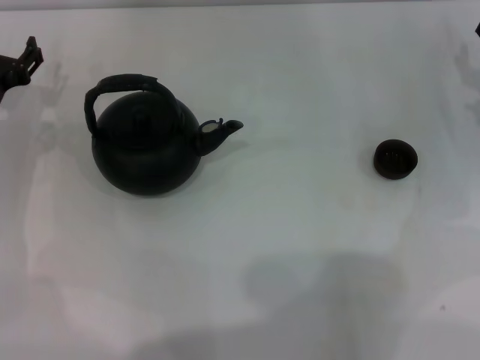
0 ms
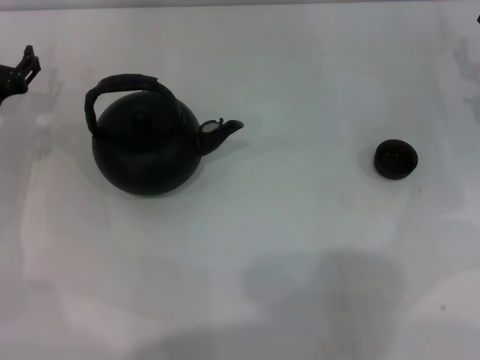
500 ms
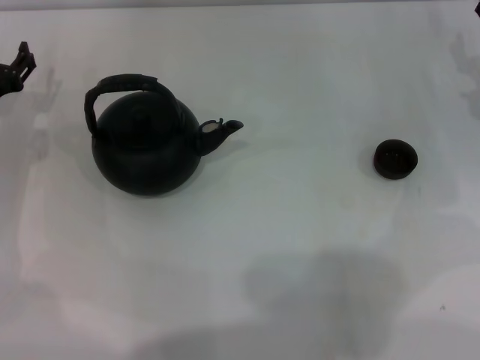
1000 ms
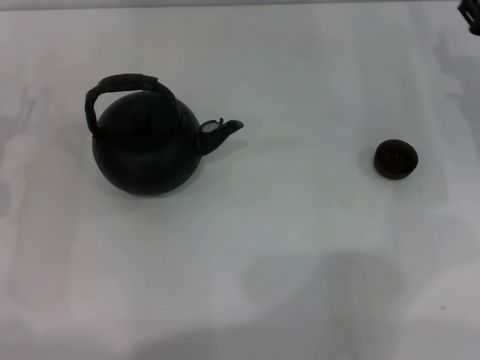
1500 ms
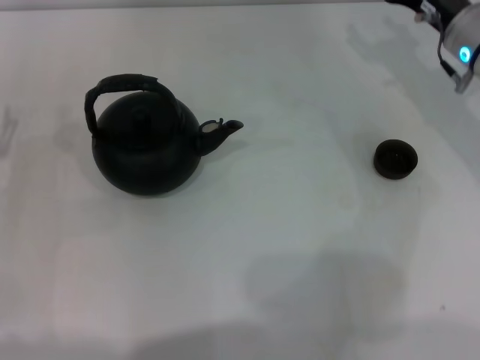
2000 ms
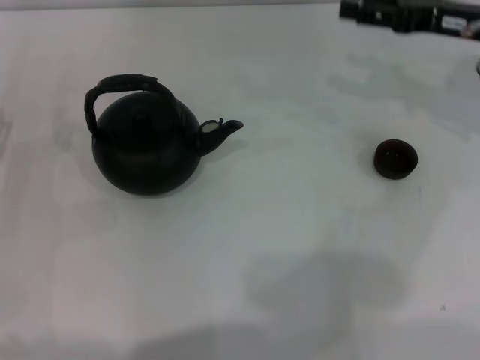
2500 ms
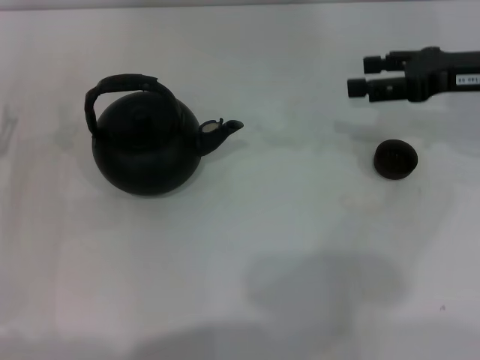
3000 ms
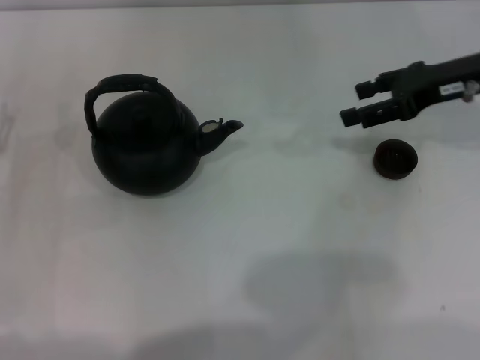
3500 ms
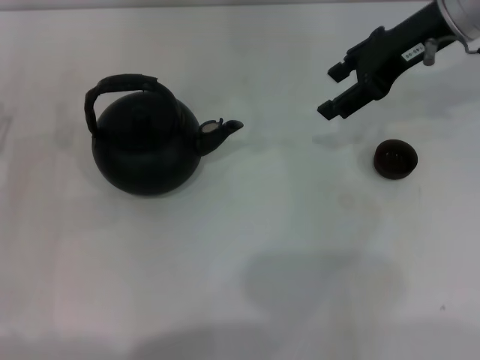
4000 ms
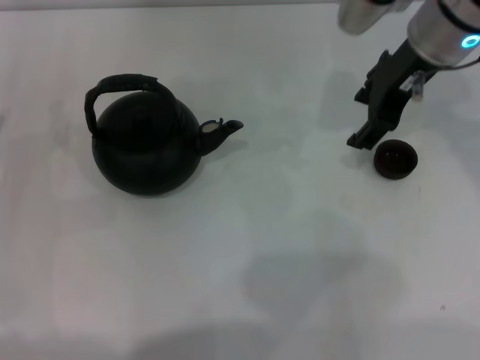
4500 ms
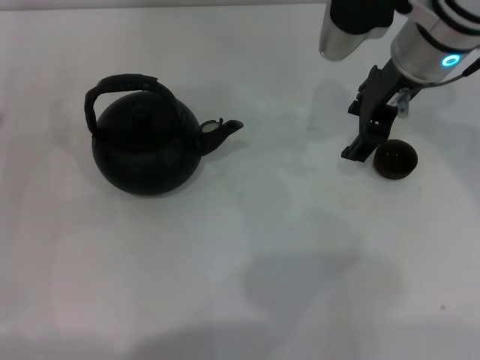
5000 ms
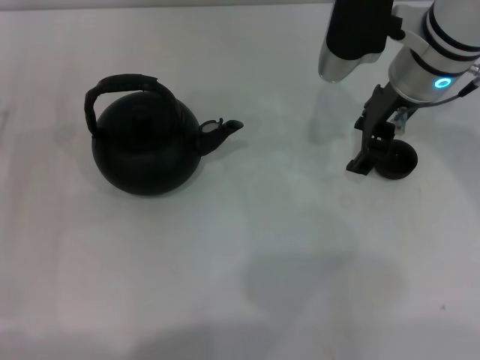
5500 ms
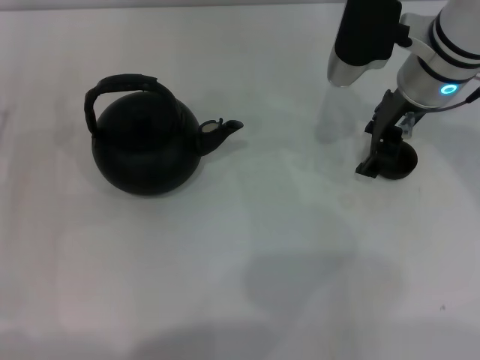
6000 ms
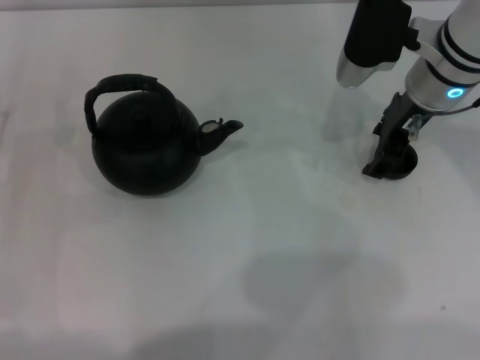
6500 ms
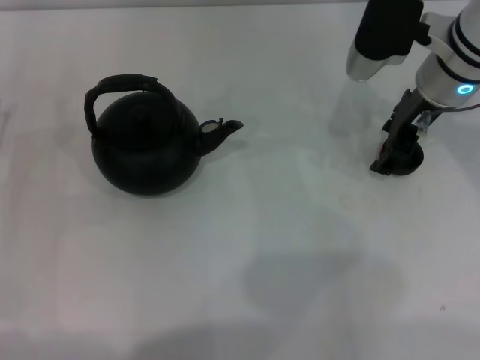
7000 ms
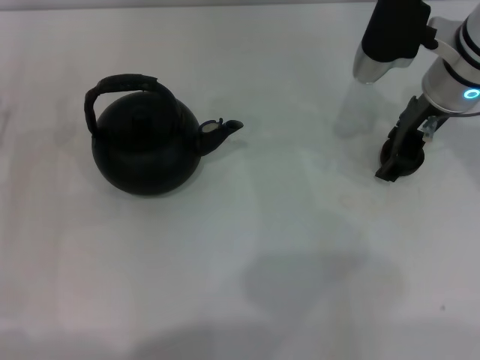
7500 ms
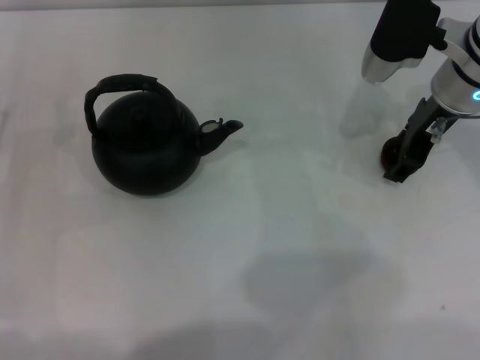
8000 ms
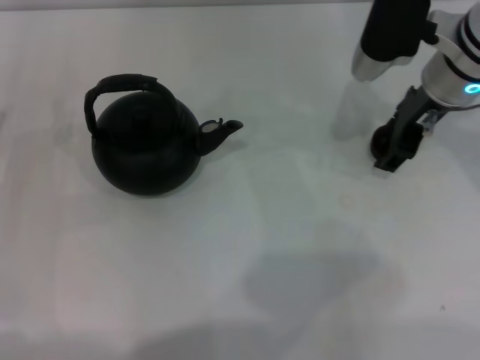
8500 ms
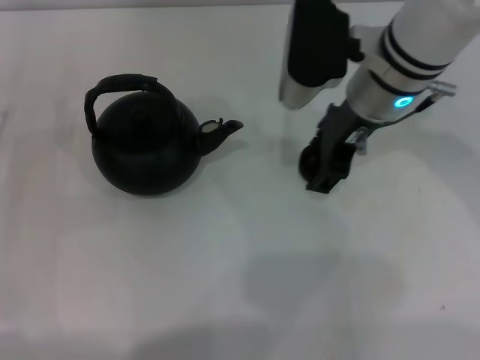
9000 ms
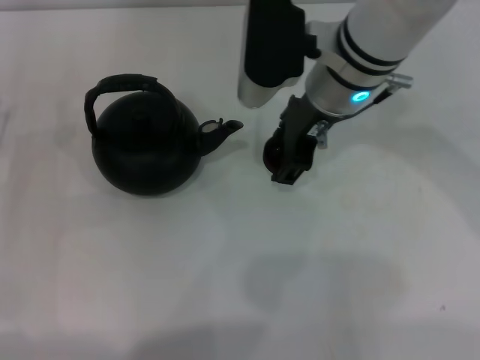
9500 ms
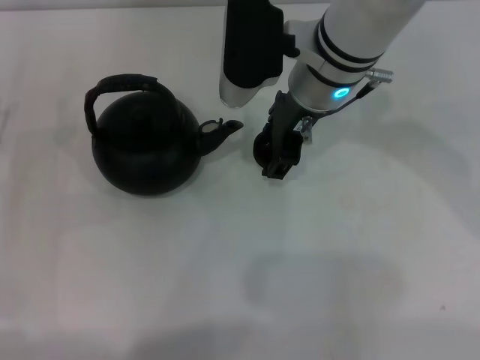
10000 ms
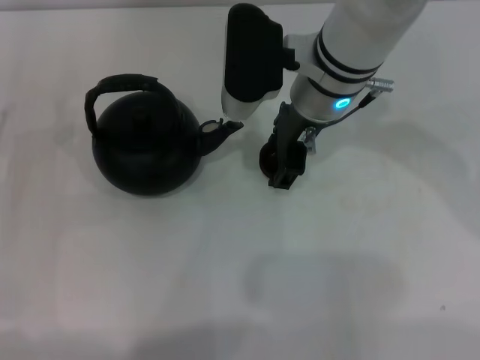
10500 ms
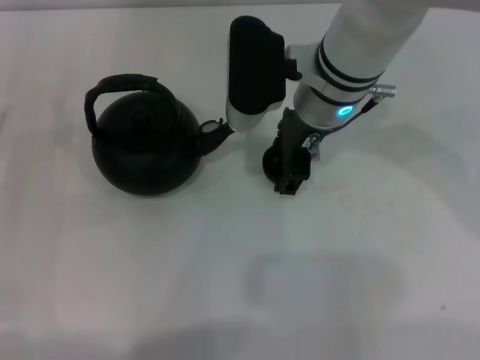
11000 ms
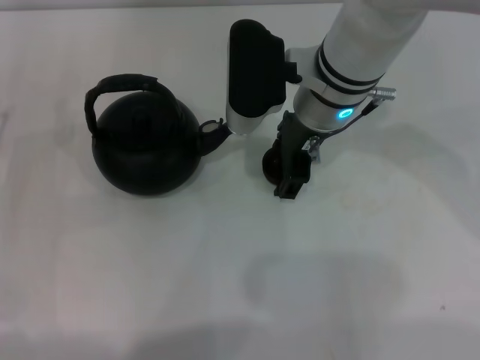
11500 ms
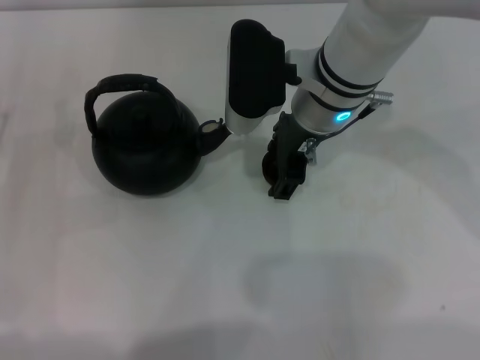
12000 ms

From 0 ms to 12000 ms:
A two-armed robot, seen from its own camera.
Task of the whole recording: Grasp the handle of the teapot with one hand and pour tea into the teacup.
Step, from 0 ms to 8500 ms: Pick up the teacup with the right gripper.
From 0 ms to 2000 ms: The left gripper shifts roughly 10 cm backward; the right gripper is displaced to the left and upward by approximately 10 cm.
From 2000 ms to 4000 ms: The right gripper goes roughly 10 cm upward.
From 4000 ms to 6000 ms: The right gripper is displaced downward by about 5 cm.
From 6000 ms to 8000 ms: The grippers stay close to where they were, moving slightly.
From 8000 ms to 10000 ms: The right gripper is displaced to the left by roughly 15 cm.
From 10000 ms to 12000 ms: The grippers move only a little.

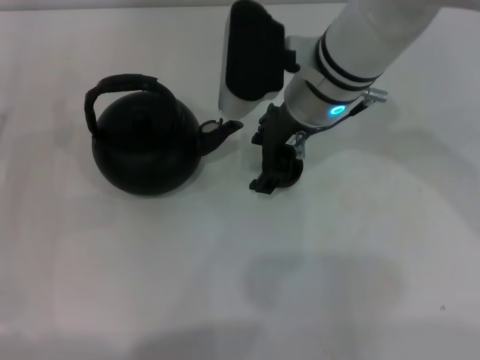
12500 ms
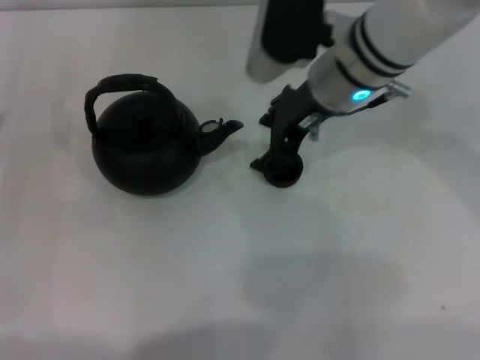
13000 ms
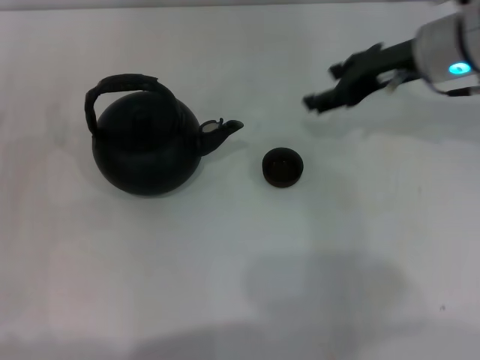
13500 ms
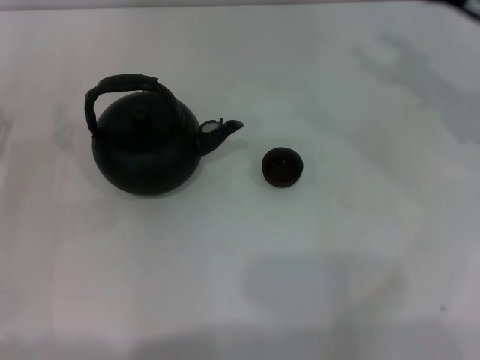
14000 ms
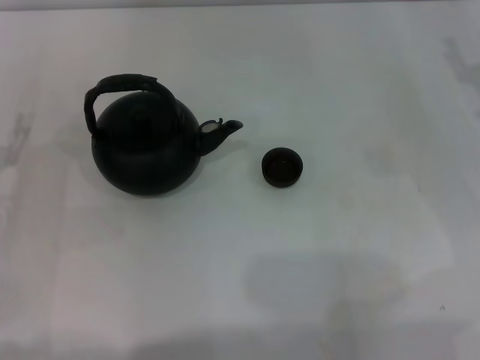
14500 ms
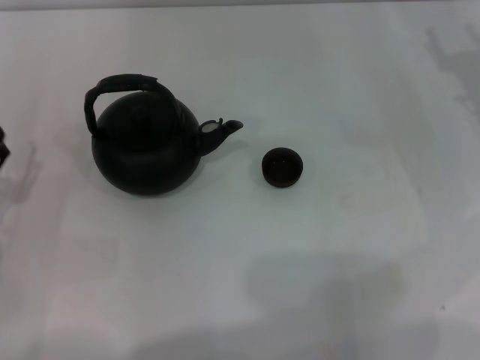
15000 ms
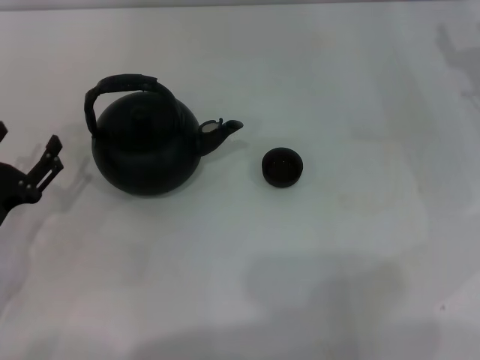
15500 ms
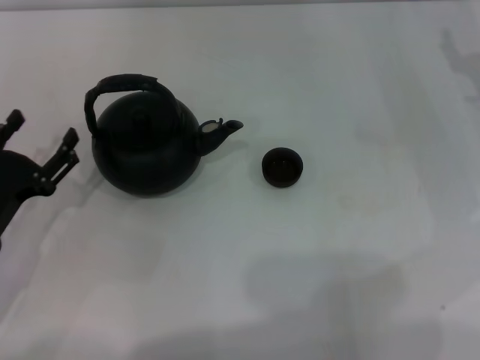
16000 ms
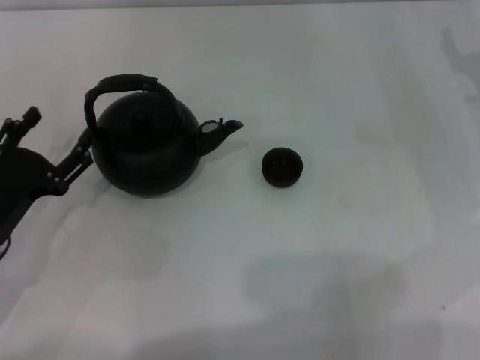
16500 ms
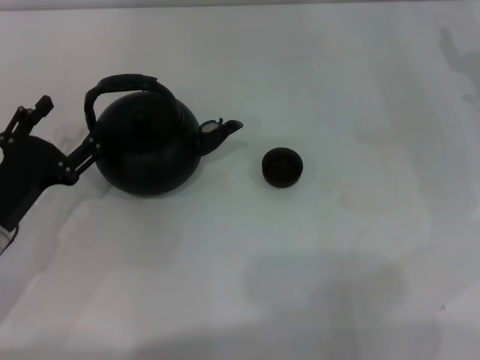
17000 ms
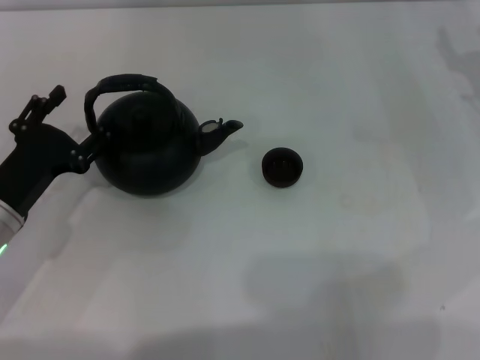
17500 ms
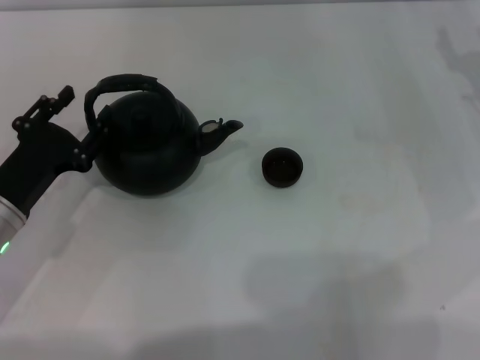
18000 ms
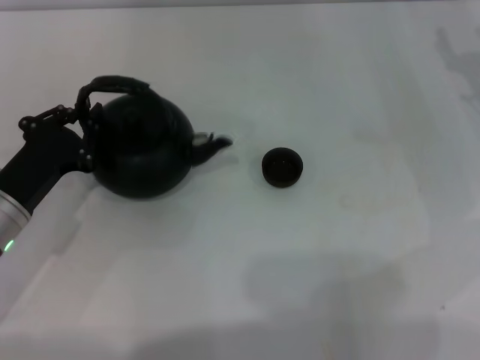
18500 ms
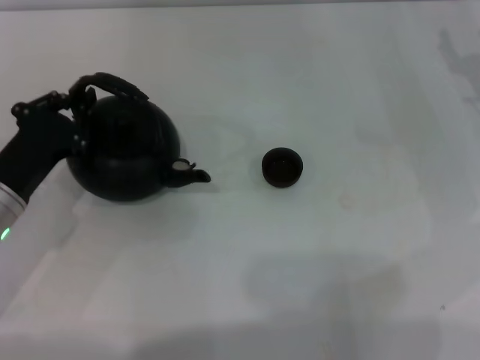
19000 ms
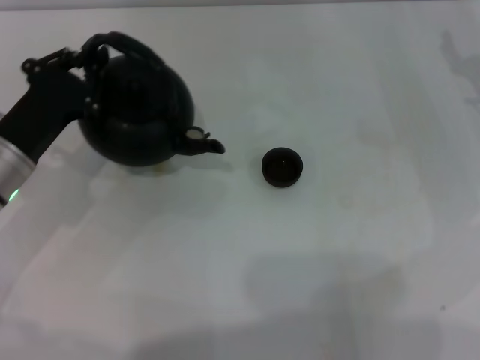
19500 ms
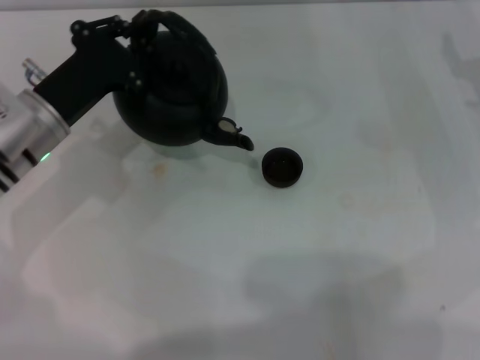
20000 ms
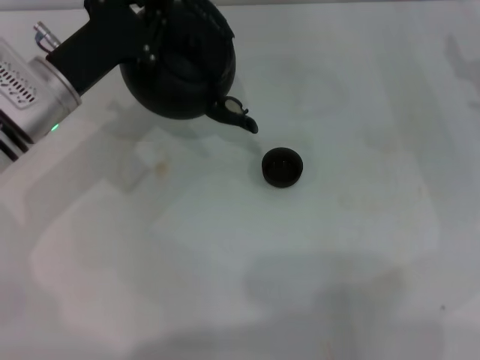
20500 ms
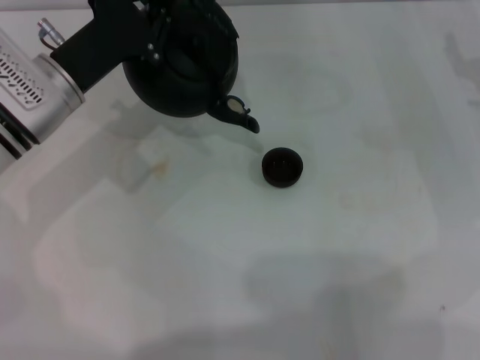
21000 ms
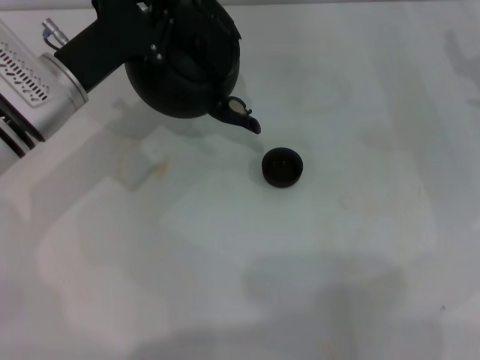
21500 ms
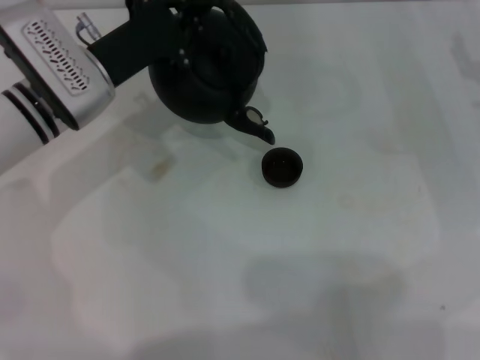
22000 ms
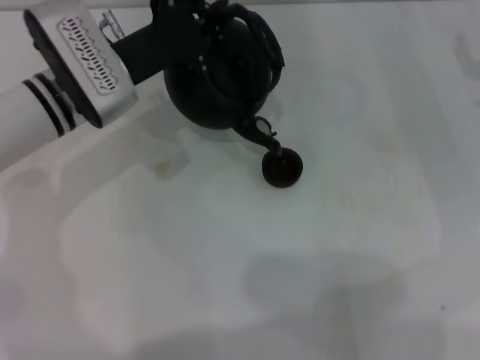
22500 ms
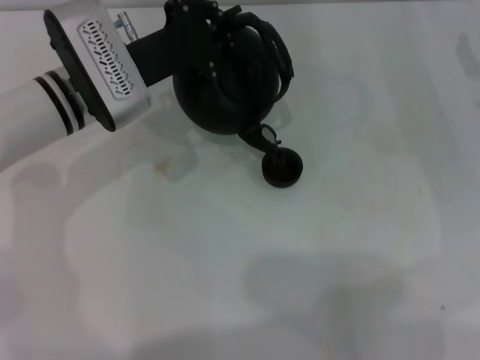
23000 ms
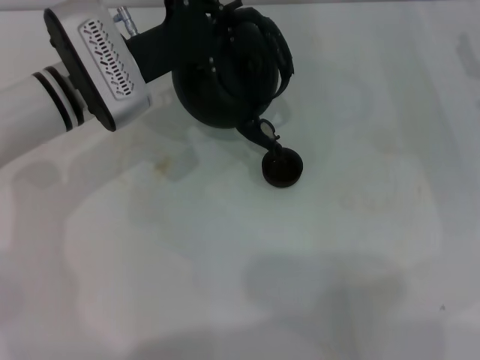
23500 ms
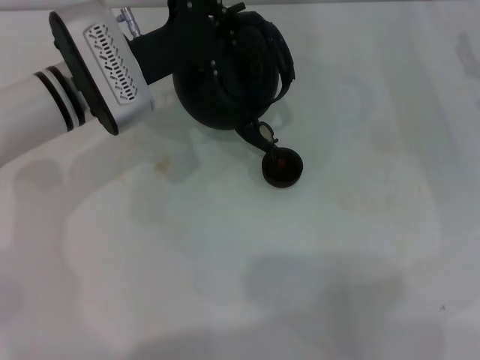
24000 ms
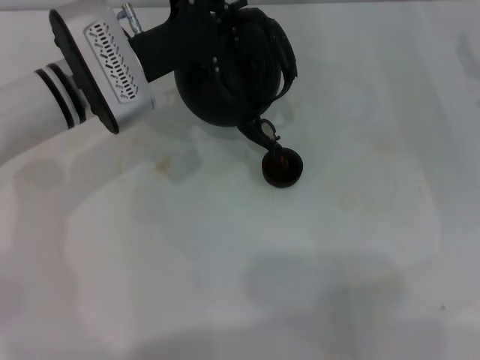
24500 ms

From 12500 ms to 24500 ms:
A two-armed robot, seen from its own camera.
Task of the whole recording: Grasp the handle of the teapot with one hand and pour tea into the teacup.
Step, from 12500 ms to 20000 ms: Pick up the teapot with the left gripper.
From 12500 ms to 14500 ms: The right gripper heads to the right, covering roughly 25 cm.
From 14500 ms to 16500 ms: The left gripper shifts by roughly 5 cm.
From 16500 ms to 18500 ms: The left gripper closes its fingers.
From 18500 ms to 20500 ms: The left gripper moves forward, upward and to the right, about 15 cm.
From 20500 ms to 22500 ms: The left gripper shifts by about 5 cm.
From 22500 ms to 24500 ms: The grippers make only small movements.

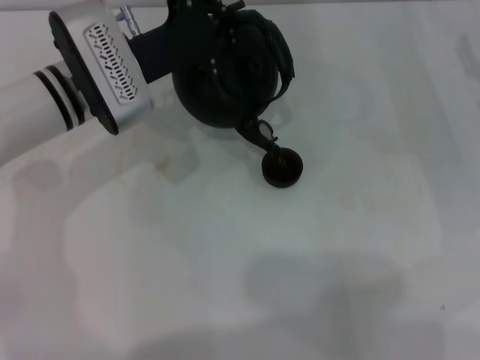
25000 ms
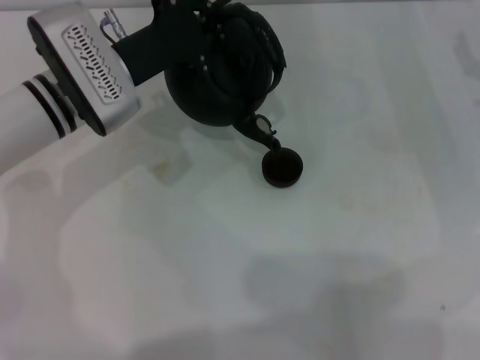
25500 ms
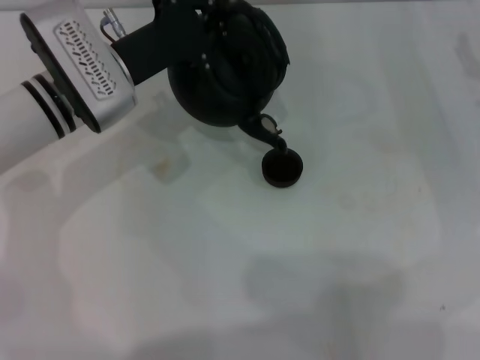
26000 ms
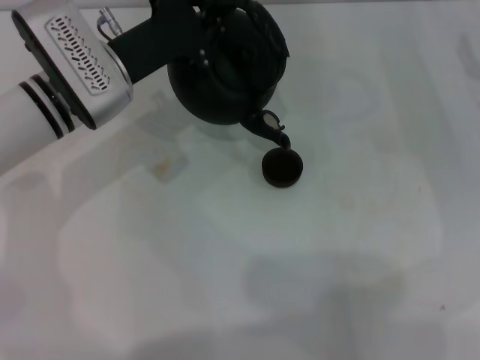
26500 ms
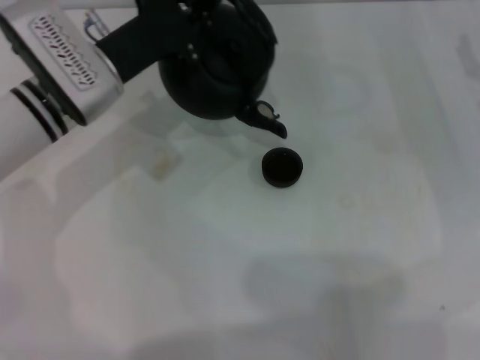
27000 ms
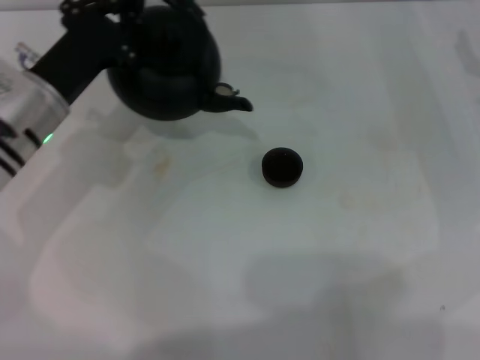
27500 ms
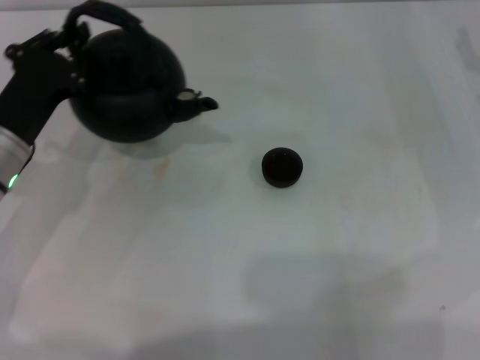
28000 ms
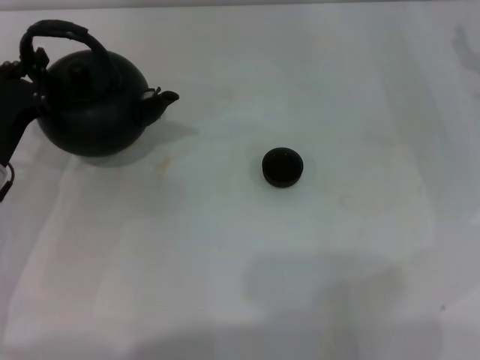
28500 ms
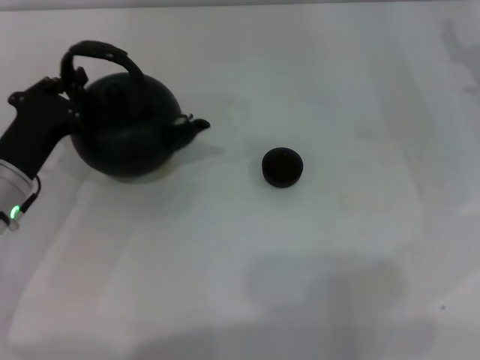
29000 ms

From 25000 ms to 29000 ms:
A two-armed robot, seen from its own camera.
Task of the whole recording: Grasp the handle of the teapot with one hand and pour tea into the teacup.
Step, from 25000 ms to 27000 ms: Pour tea into the teacup with the left gripper.
From 25000 ms to 27000 ms: The grippers move only a little.
From 27000 ms to 29000 ms: The left gripper is displaced backward, to the left and downward by roughly 15 cm.
